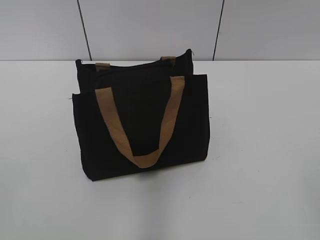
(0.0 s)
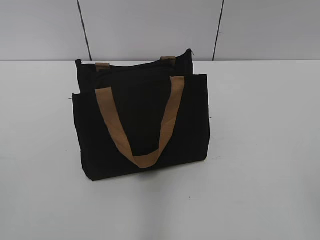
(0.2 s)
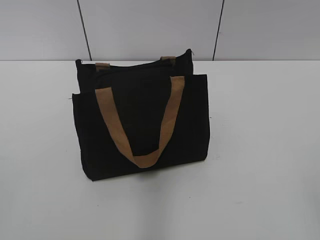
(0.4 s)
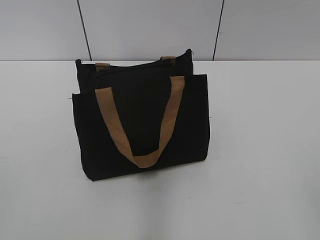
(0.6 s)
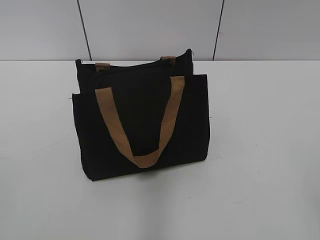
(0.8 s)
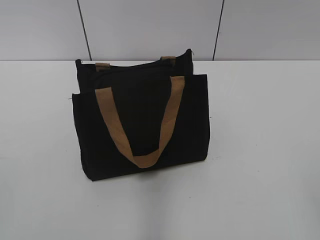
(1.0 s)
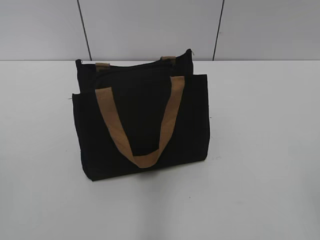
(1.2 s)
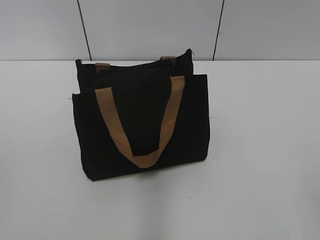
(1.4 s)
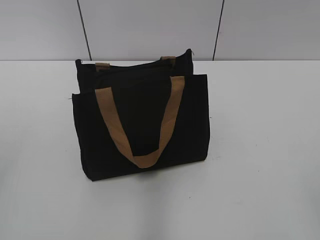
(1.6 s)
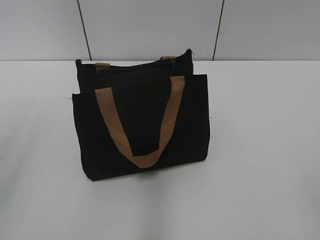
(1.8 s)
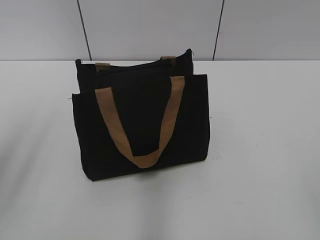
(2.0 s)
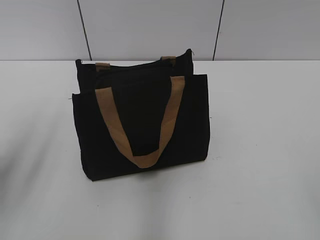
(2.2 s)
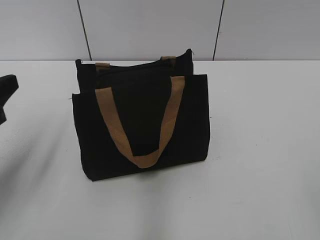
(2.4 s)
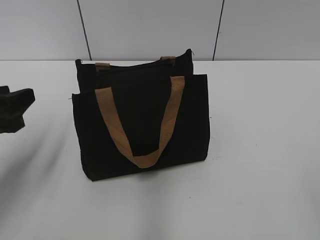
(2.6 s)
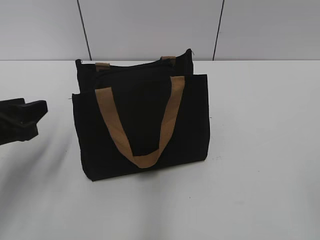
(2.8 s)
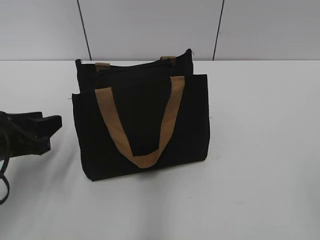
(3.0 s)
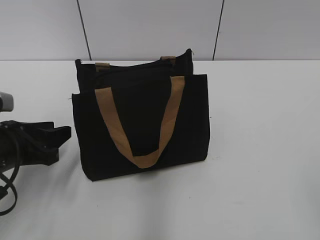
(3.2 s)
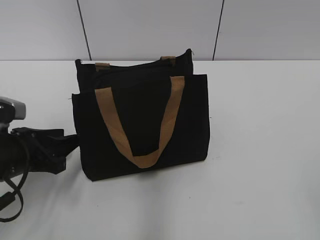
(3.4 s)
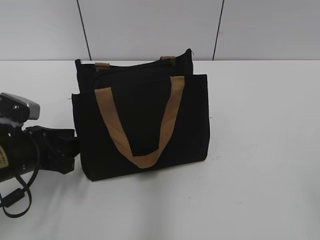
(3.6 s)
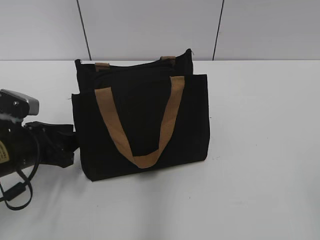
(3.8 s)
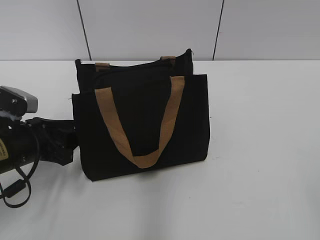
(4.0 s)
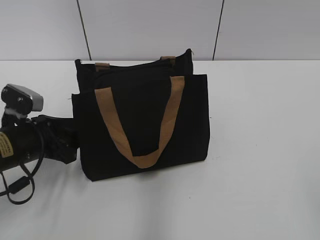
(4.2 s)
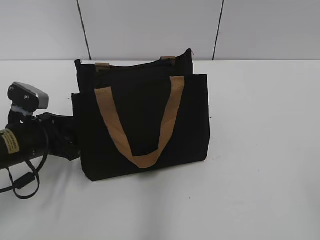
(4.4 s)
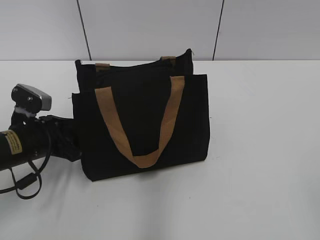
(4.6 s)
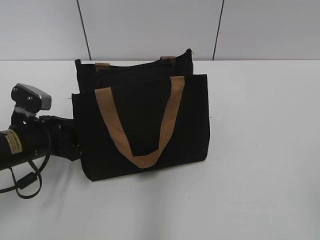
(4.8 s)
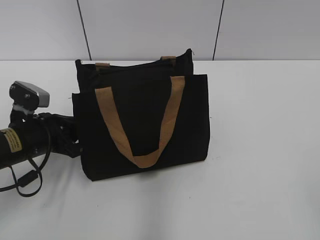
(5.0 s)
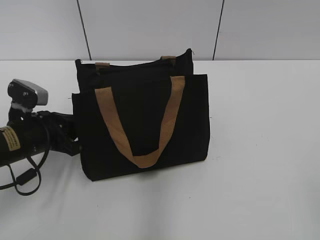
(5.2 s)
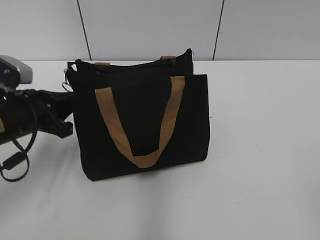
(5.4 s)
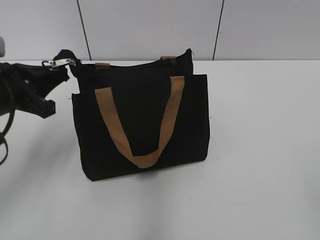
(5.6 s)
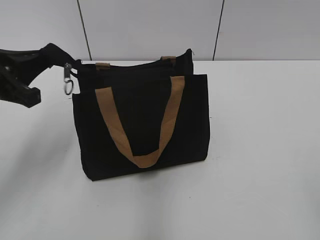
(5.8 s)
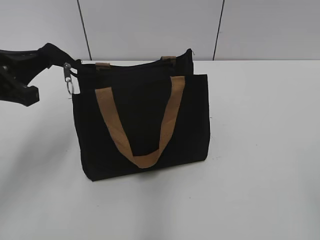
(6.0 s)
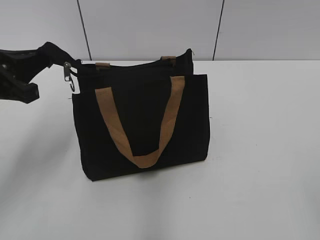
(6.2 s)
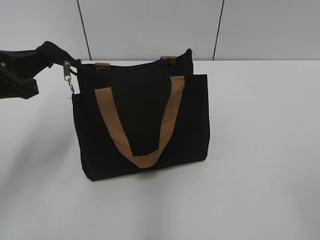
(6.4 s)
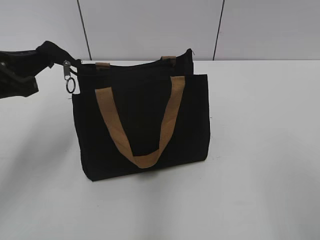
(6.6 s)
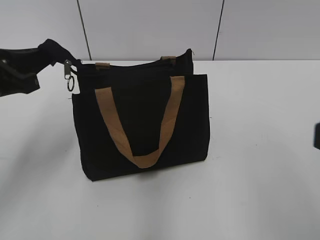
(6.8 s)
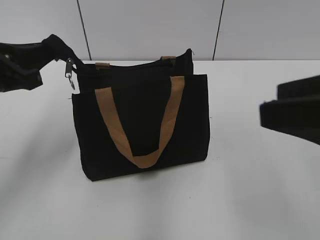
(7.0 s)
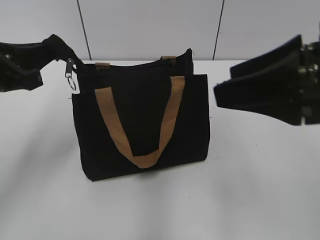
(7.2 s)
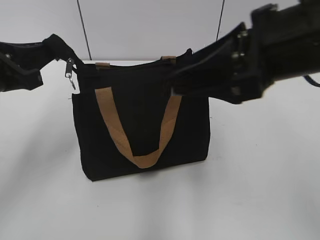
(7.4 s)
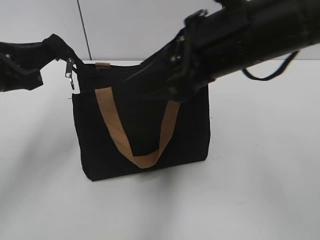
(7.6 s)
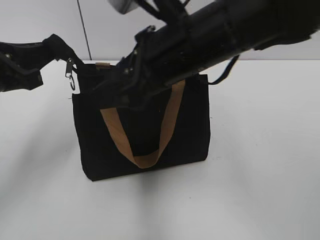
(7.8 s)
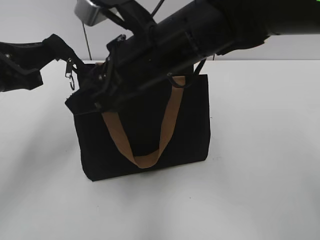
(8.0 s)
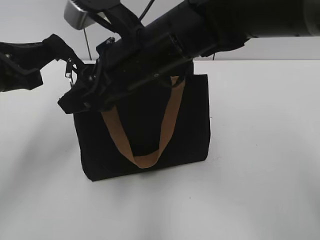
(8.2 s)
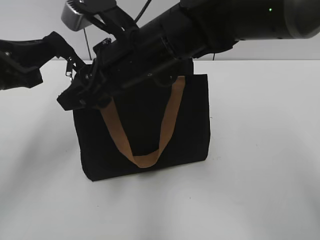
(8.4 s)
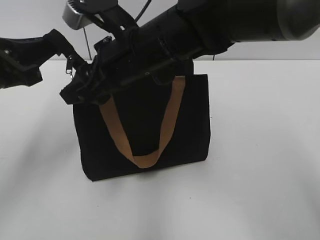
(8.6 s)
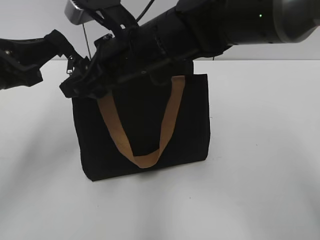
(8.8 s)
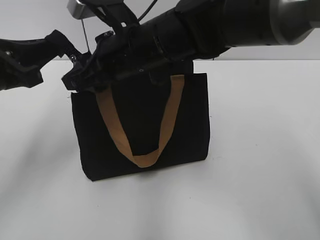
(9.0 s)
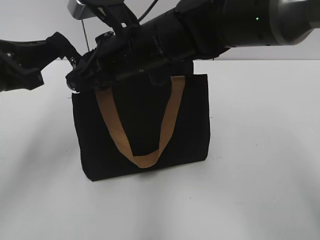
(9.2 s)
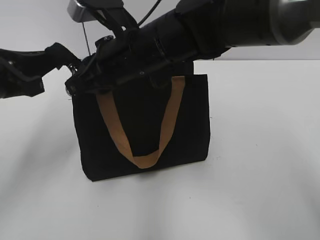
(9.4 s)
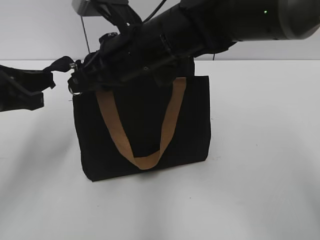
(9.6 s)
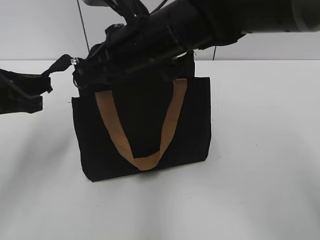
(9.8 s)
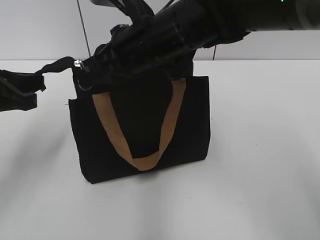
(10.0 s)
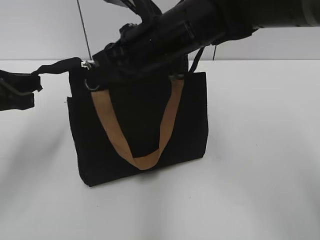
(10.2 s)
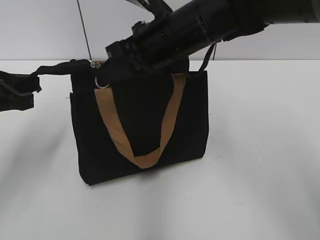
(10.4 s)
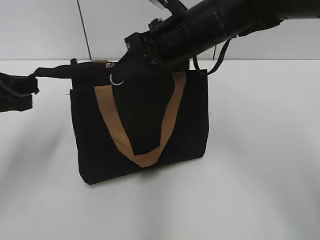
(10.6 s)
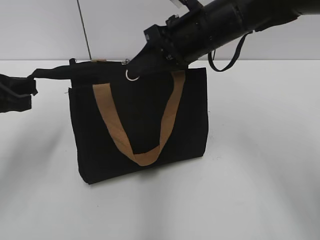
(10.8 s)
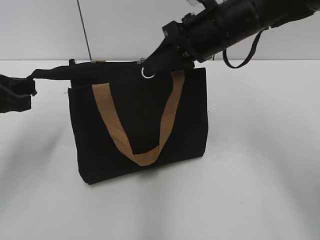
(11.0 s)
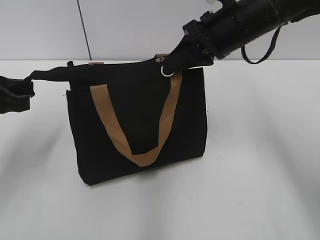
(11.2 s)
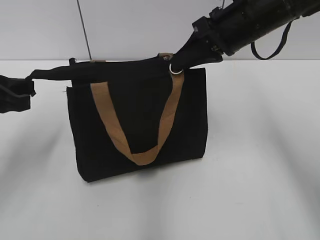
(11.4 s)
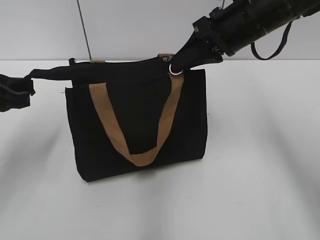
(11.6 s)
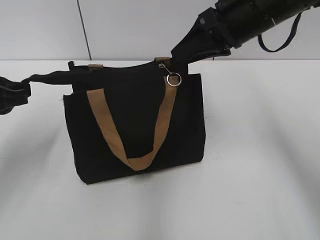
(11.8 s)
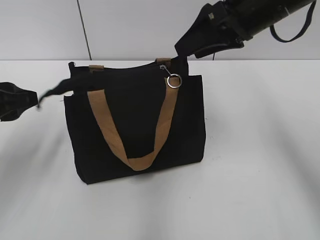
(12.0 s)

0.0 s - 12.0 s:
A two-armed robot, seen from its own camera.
Step, 0.0 s - 11.6 s: Zip up the bag with your right hand.
1.6 s - 3.0 s: The left gripper travels downward and forward by about 25 cm.
3.0 s - 4.4 s: The left gripper heads downward, covering approximately 5 cm.
4.4 s - 6.0 s: The left gripper heads upward, covering about 15 cm, and closes.
6.0 s - 7.6 s: The right gripper travels forward and to the left by approximately 30 cm.
7.6 s - 9.0 s: The right gripper moves to the left, forward and downward, about 15 cm.
9.0 s - 10.4 s: The right gripper closes.
10.4 s - 12.0 s: The left gripper opens up. The right gripper shifts roughly 10 cm to the right, and opens its fingers.

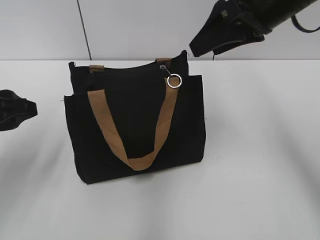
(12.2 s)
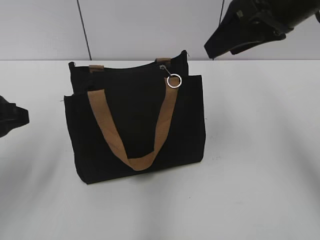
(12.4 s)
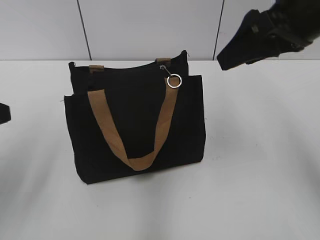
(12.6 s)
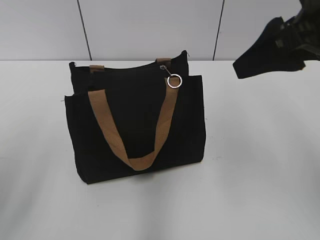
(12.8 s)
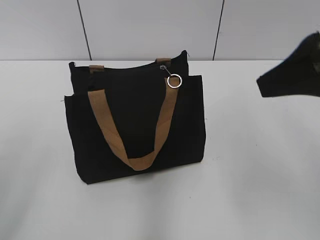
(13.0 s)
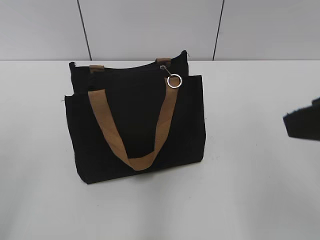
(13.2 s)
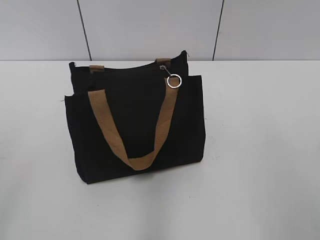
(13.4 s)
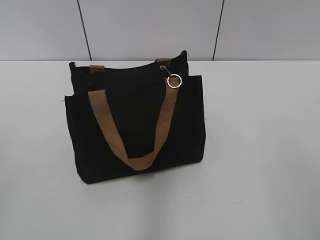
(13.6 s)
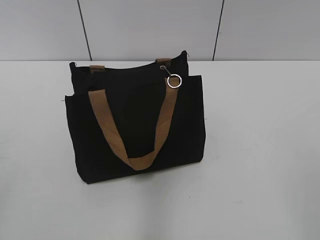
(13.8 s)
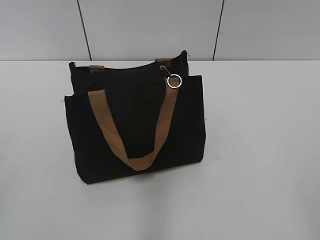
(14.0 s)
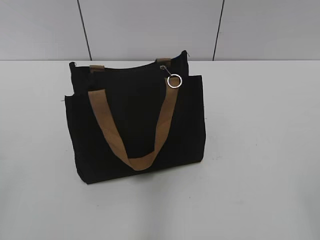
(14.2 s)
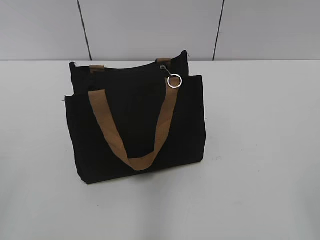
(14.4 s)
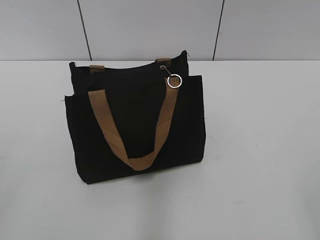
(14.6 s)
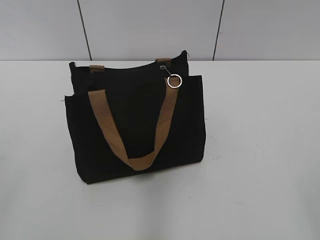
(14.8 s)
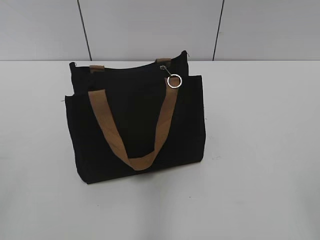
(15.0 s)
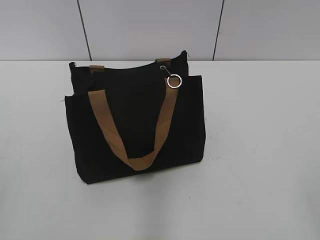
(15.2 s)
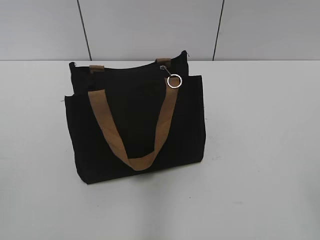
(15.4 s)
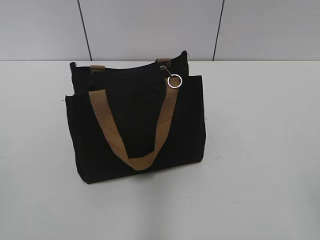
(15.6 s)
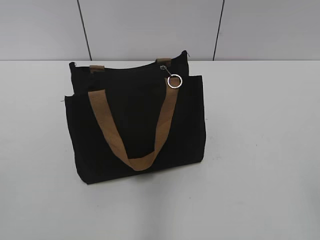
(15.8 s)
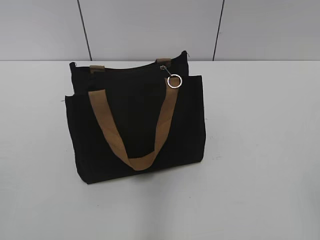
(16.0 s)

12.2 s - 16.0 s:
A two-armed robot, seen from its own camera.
12.2 s - 13.4 s: The right gripper goes roughly 25 cm backward. The left gripper shifts about 20 cm backward and upward.

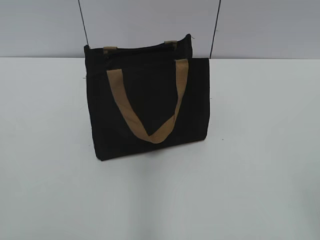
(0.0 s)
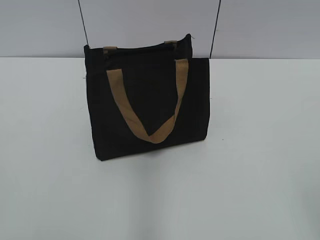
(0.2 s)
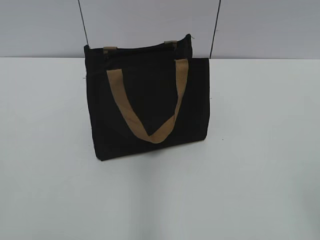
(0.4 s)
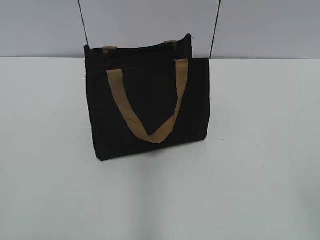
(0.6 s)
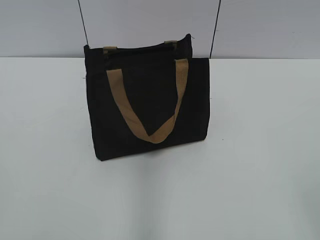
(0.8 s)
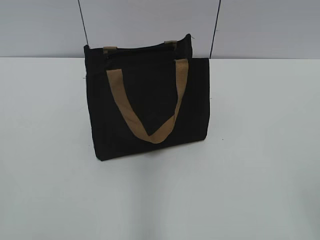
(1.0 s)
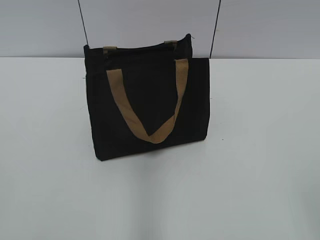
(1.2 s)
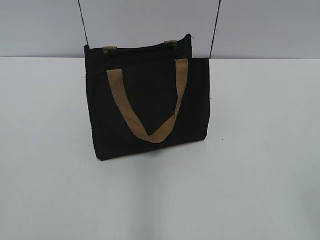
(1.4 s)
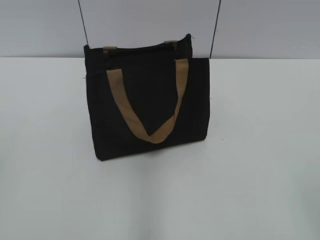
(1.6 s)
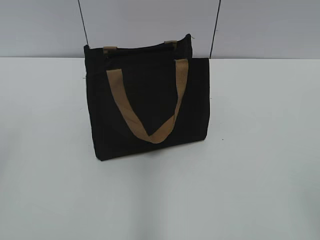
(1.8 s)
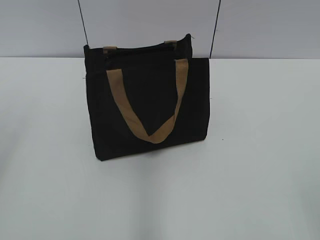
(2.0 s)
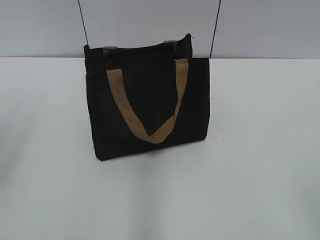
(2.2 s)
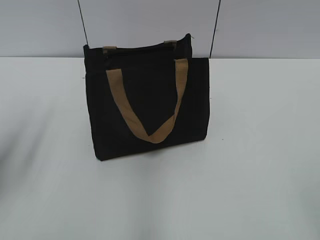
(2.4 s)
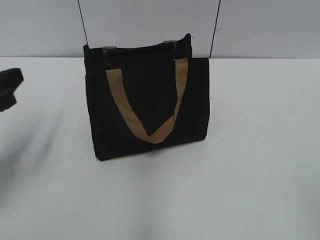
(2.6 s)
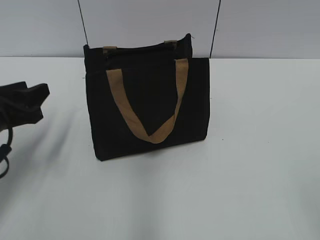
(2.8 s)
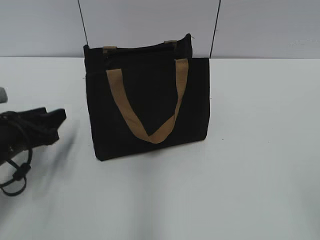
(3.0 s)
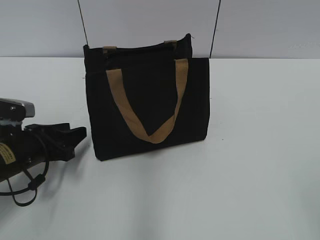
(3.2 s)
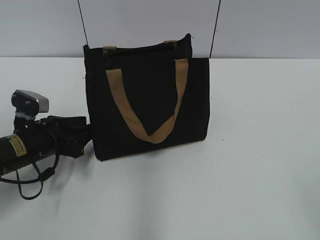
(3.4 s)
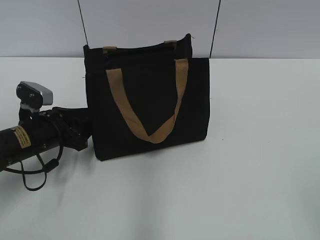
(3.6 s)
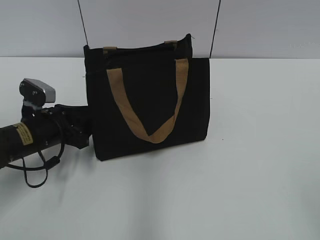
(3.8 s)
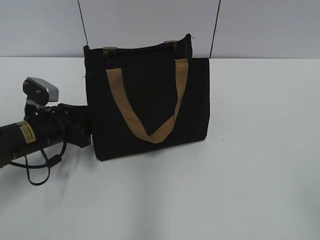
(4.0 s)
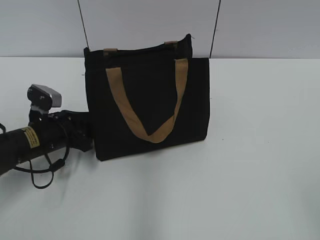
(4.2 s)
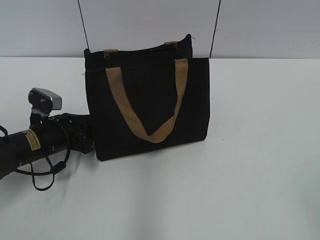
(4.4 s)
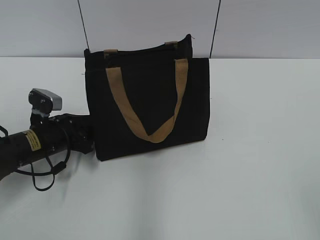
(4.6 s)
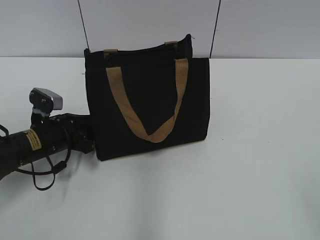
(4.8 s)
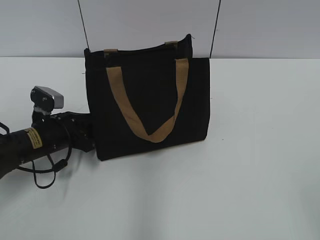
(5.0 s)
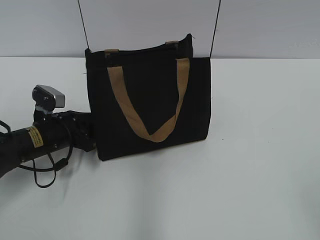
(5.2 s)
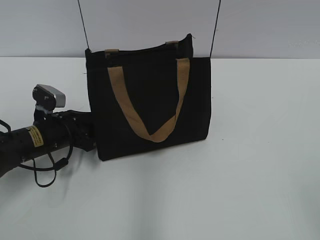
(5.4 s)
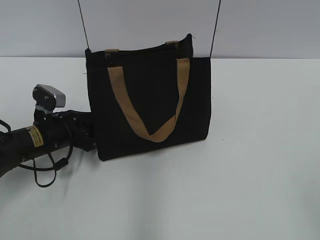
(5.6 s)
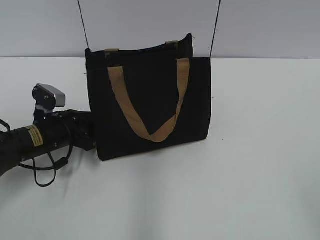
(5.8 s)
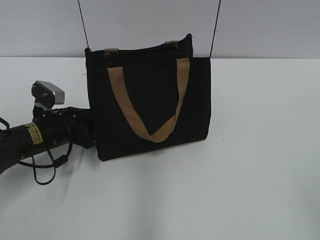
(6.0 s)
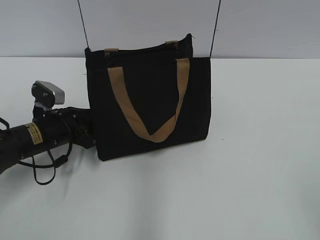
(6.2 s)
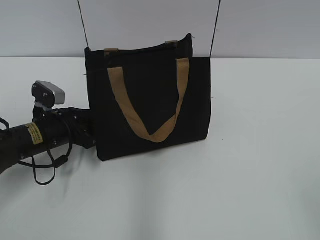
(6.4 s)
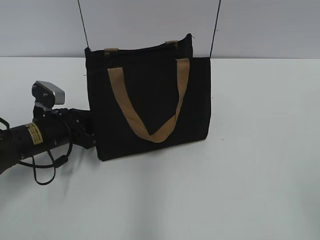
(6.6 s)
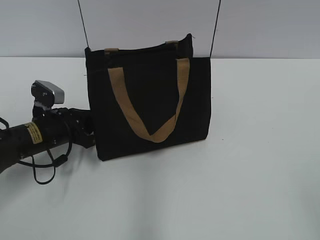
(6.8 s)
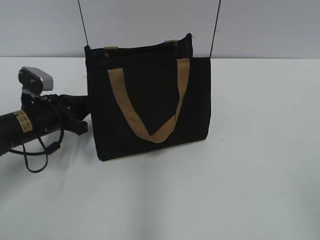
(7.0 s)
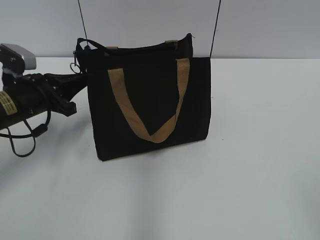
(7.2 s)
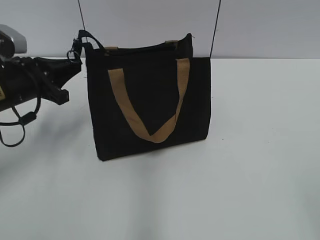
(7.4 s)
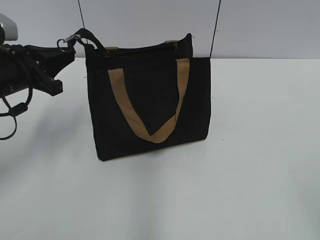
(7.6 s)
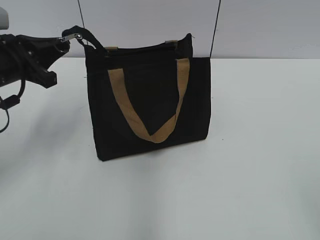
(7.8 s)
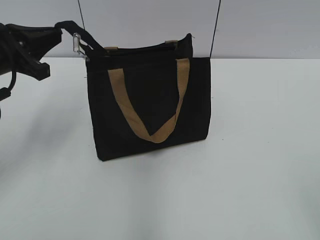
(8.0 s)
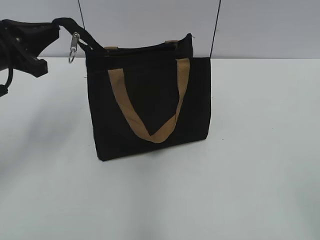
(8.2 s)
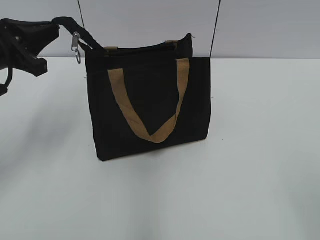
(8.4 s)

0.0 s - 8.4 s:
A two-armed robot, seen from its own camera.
1.4 s - 2.8 s: The left gripper moves forward and downward, some 25 cm.
2.8 s - 4.2 s: The left gripper moves downward and forward, about 10 cm.
4.2 s - 5.6 s: Both grippers stay about where they are.
5.6 s - 7.0 s: The left gripper closes.
7.0 s - 8.4 s: The left gripper moves upward, approximately 15 cm.
